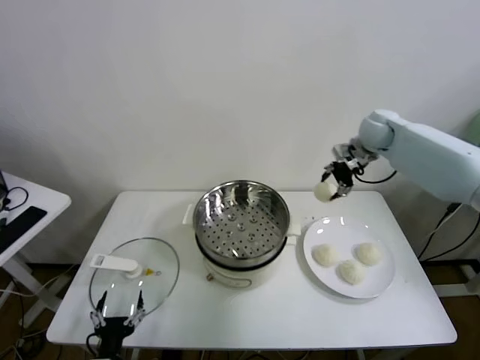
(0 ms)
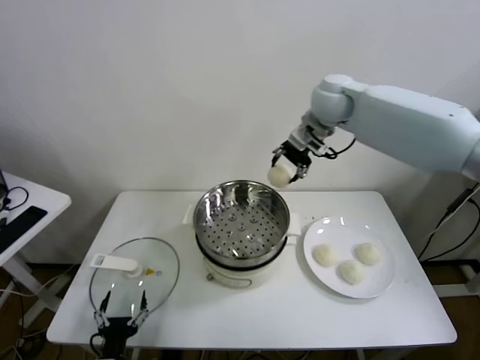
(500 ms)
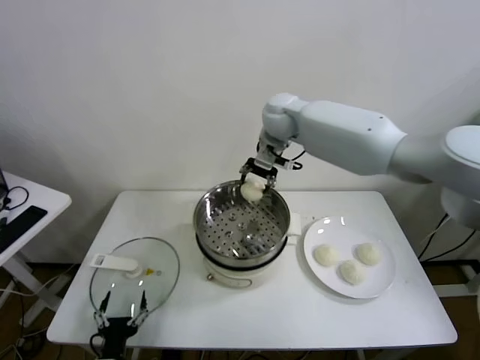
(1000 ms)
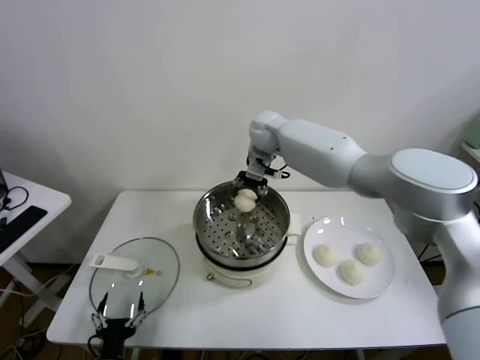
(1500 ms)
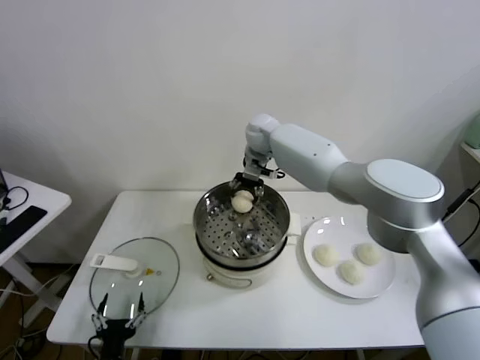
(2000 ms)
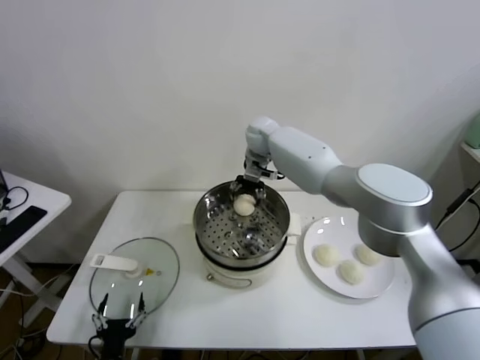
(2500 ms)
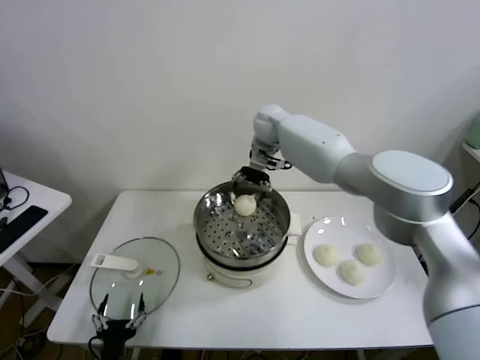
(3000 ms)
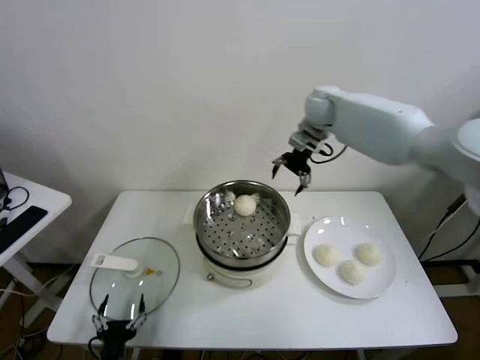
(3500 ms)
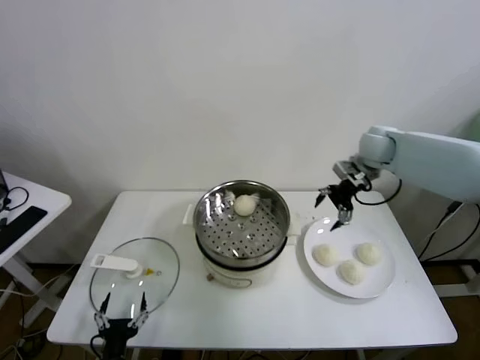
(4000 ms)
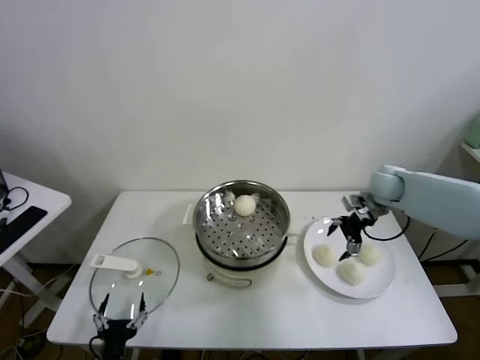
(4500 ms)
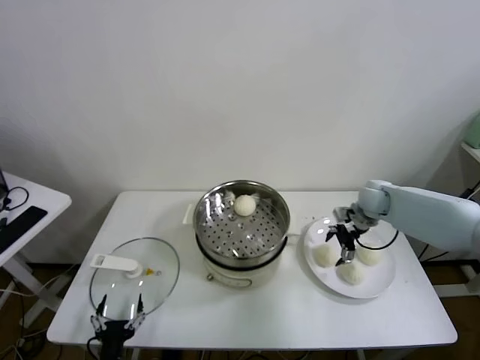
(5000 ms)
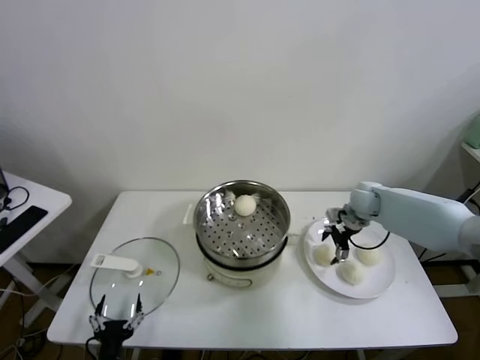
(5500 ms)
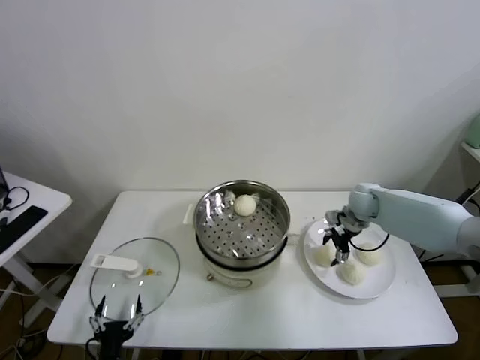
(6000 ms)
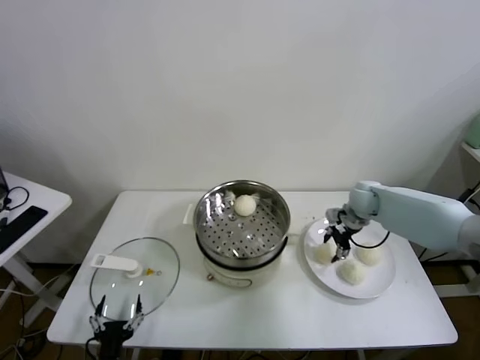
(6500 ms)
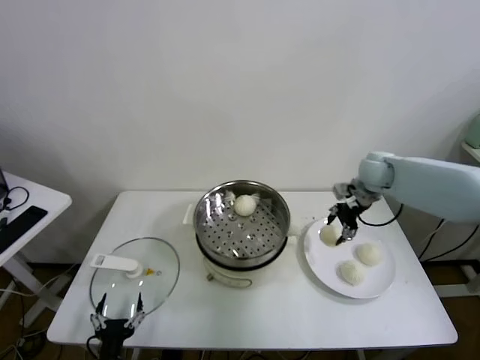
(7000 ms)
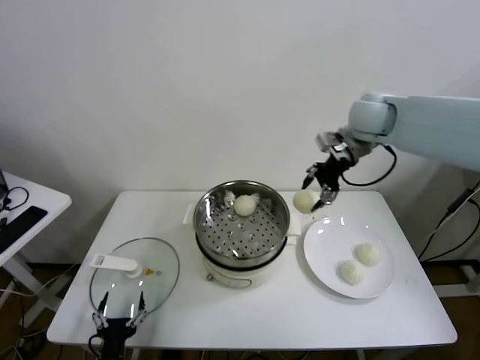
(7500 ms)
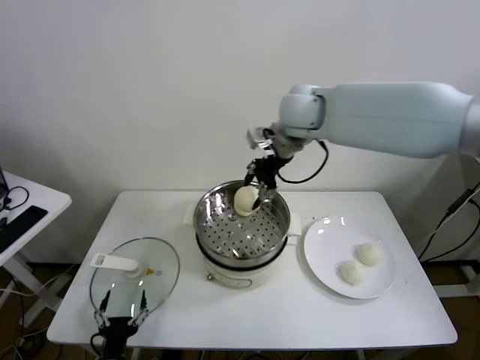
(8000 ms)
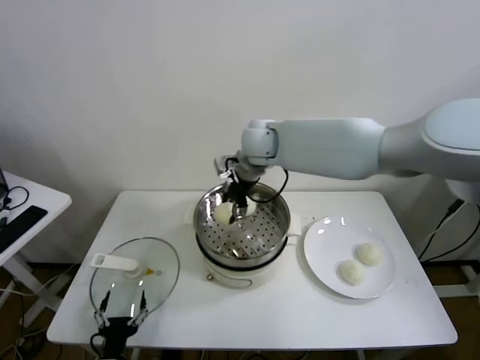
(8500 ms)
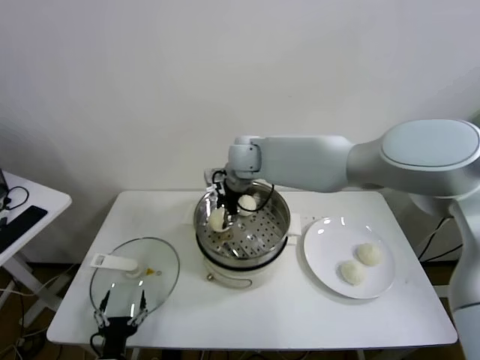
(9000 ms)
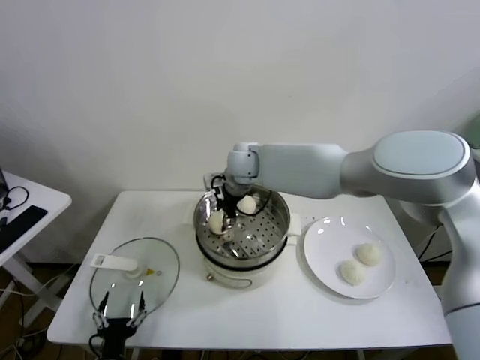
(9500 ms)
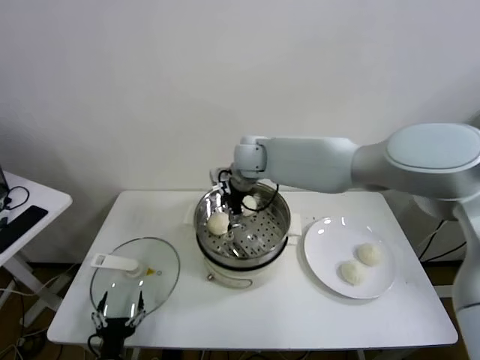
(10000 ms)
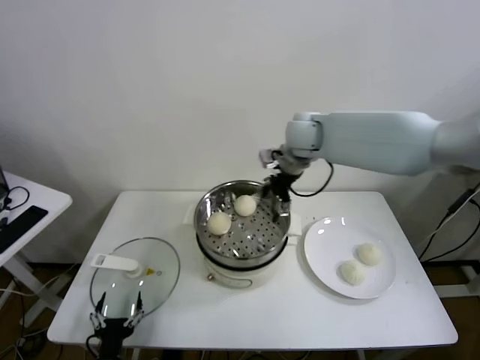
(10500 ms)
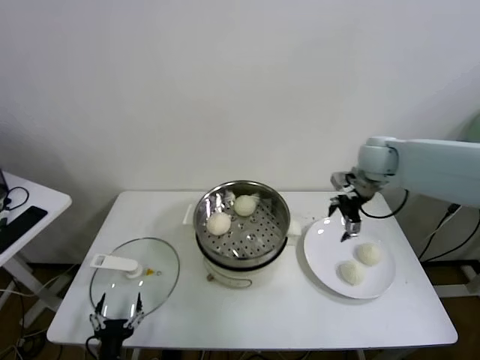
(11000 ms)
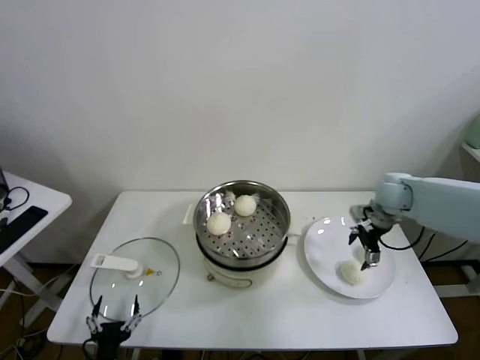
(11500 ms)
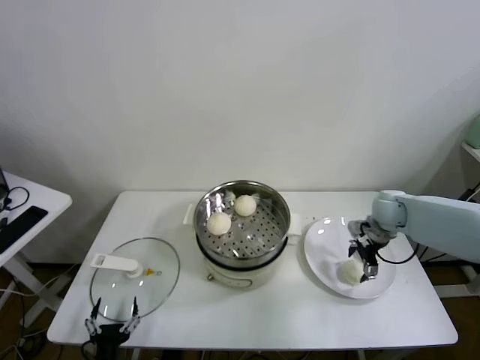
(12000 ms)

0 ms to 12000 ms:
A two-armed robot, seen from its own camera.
Task of the whole recording: take steamed baozi put them in steamer.
Step, 0 ms to 2500 ms: Place the baozi on the steamer with right gripper.
Step, 3000 ms to 6000 ms: Grasp the baozi in the plate with right gripper.
Step, 6500 ms to 9500 ms: Place the baozi on the steamer with right gripper.
0 ms to 2000 ms: The right gripper goes roughly 25 cm to the left.
2000 ms to 4000 ms: The right gripper moves to the right, approximately 30 cm, and opens its fingers.
4000 ms to 6000 ms: The right gripper travels downward by approximately 15 cm, and closes up.
6000 ms to 8000 ms: The right gripper goes some 35 cm upward and to the left.
8000 ms to 10000 ms: The right gripper is displaced downward and to the left by roughly 15 cm, and opens its fingers.
10000 ms to 12000 ms: The right gripper moves to the right, approximately 35 cm.

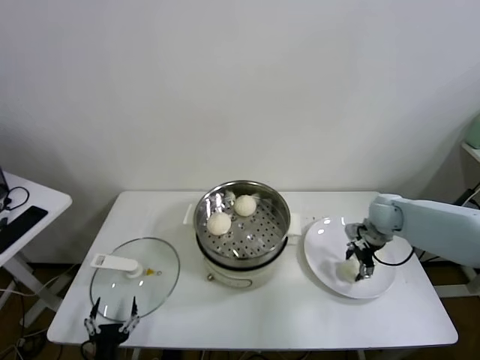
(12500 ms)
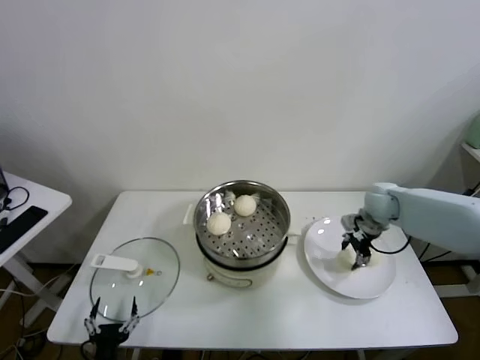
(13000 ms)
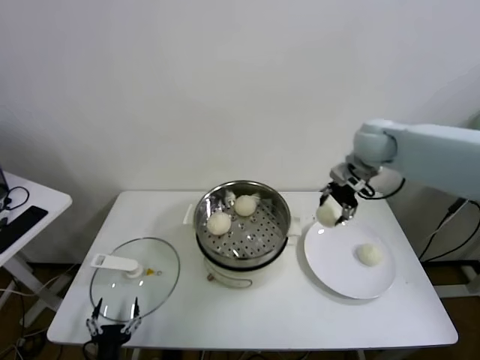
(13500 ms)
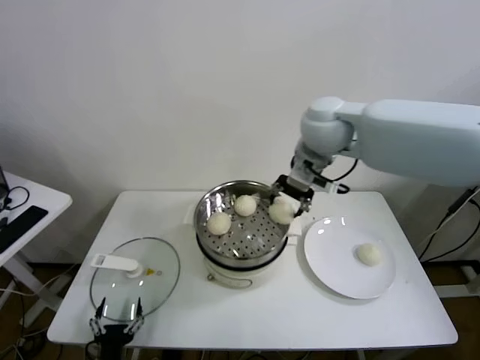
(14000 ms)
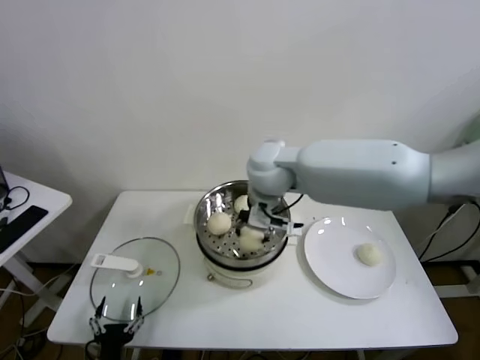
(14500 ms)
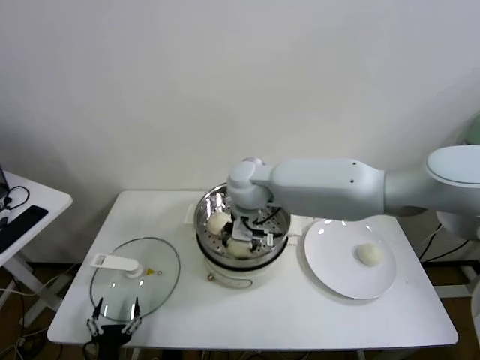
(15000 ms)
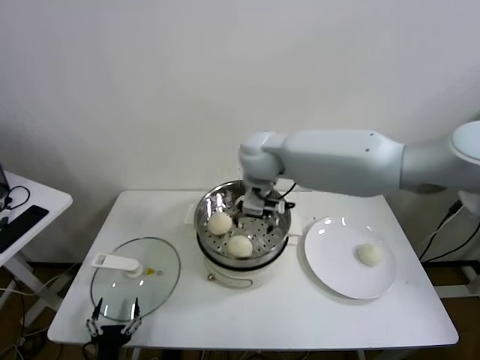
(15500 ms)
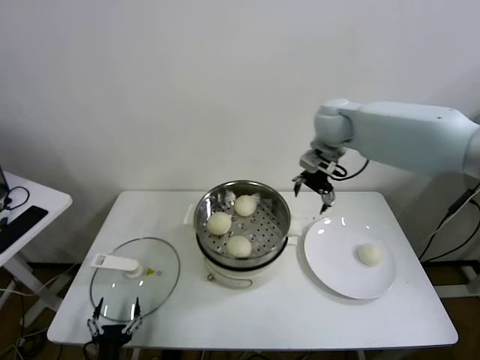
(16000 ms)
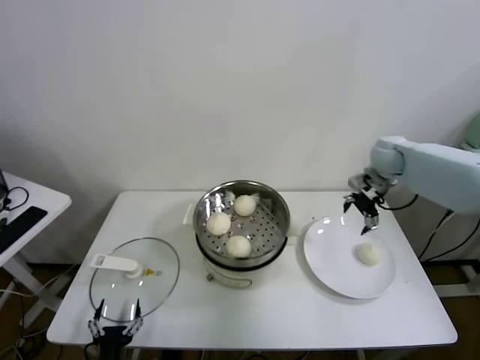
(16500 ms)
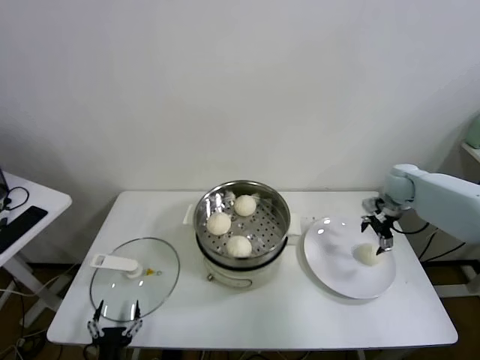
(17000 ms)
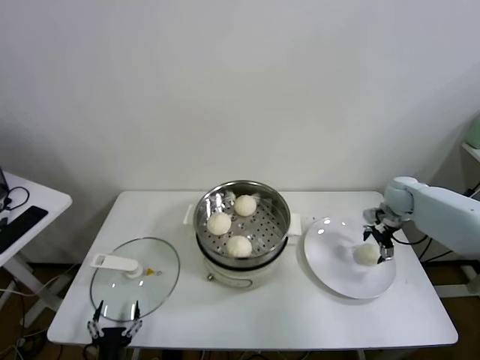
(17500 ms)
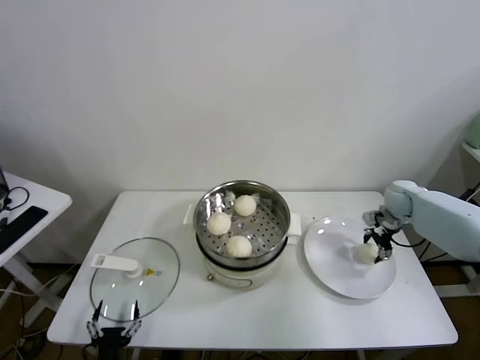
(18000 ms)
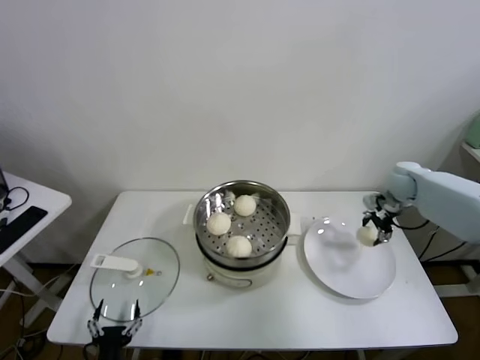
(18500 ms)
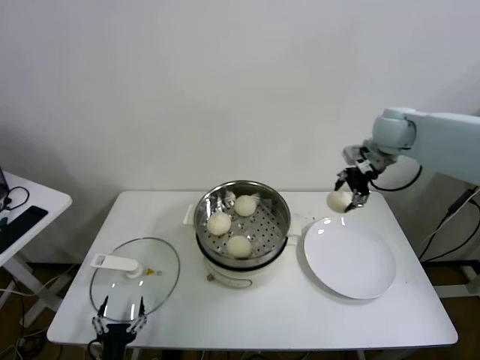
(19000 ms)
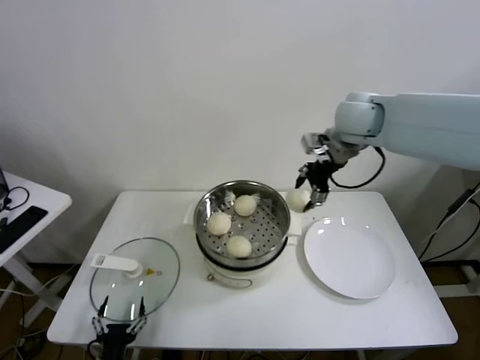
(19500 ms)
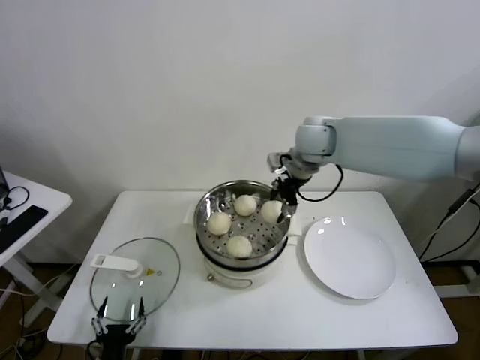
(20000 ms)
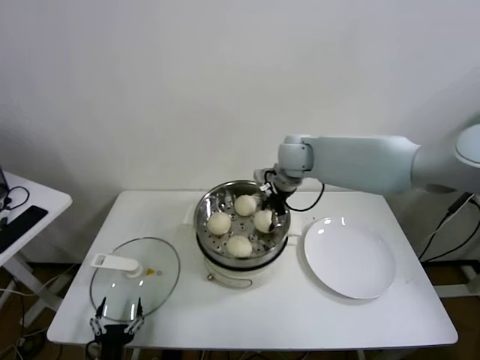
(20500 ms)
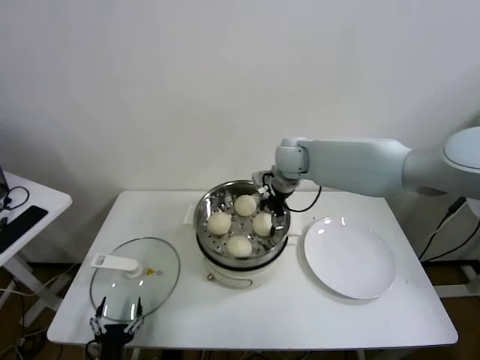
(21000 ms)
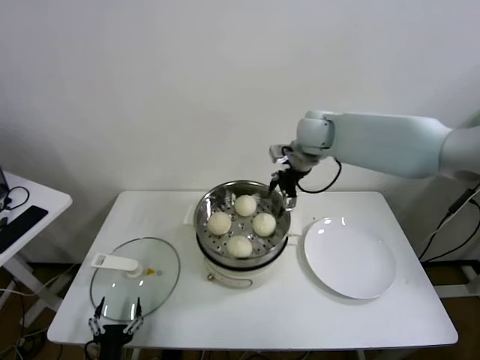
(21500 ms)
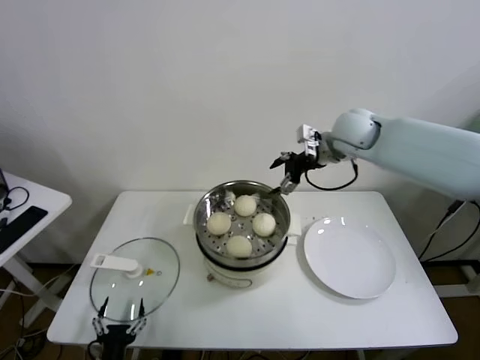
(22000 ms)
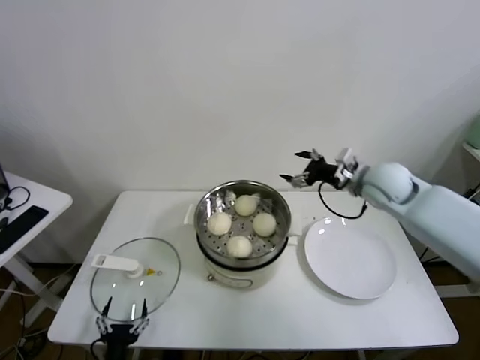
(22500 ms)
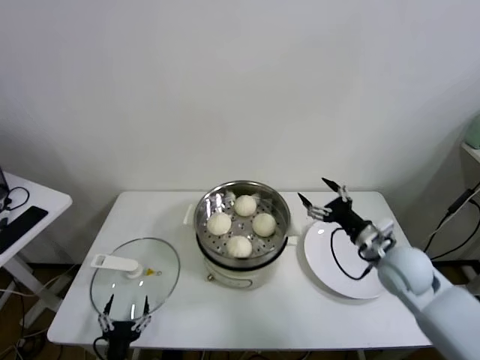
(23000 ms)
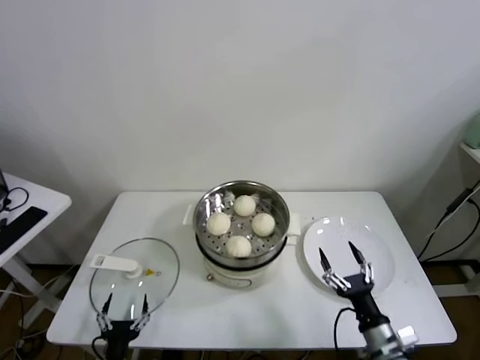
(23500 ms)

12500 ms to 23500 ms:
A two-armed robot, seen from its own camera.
Task of the whole recording: take steamed baozi put them in steamer.
Step, 13000 ms to 15000 ms: Place the baozi on the steamer with right gripper.
Step, 15500 ms to 18000 ms: Grasp the baozi in the plate with right gripper.
Step, 18500 ms to 21000 ms: Place the baozi on the steamer with right gripper.
12500 ms to 14500 ms: The right gripper travels to the left and upward by about 35 cm, and closes its fingers.
14500 ms to 16000 ms: The right gripper travels to the right and forward by some 20 cm, and opens up.
16000 ms to 18000 ms: The right gripper moves to the right and downward, approximately 30 cm, and closes up.
18000 ms to 20000 ms: The right gripper heads to the left and upward, covering approximately 35 cm.
20000 ms to 21500 ms: The right gripper opens up.
21500 ms to 23500 ms: The right gripper heads backward and downward, covering approximately 50 cm.

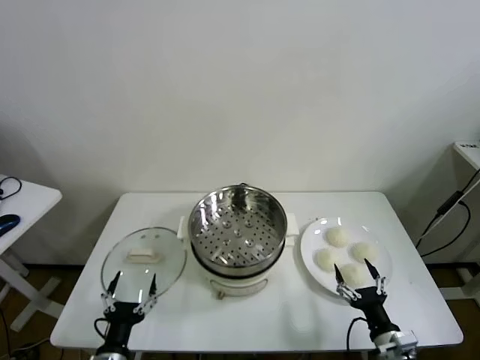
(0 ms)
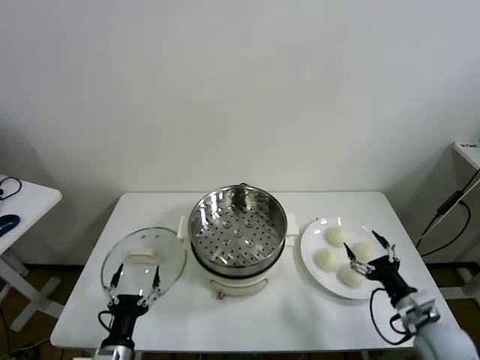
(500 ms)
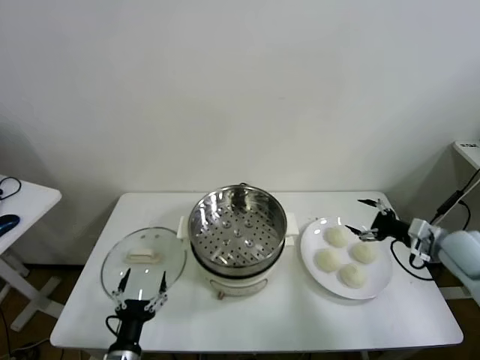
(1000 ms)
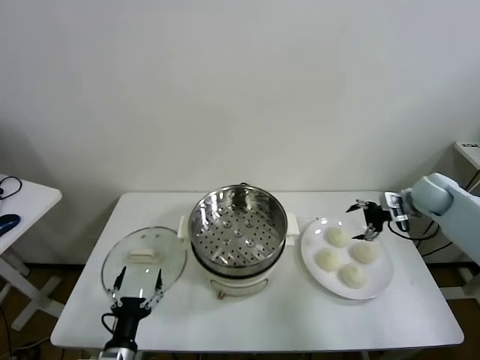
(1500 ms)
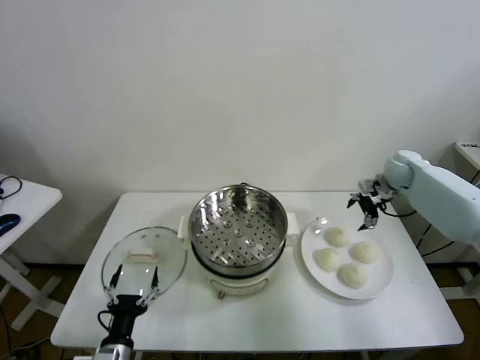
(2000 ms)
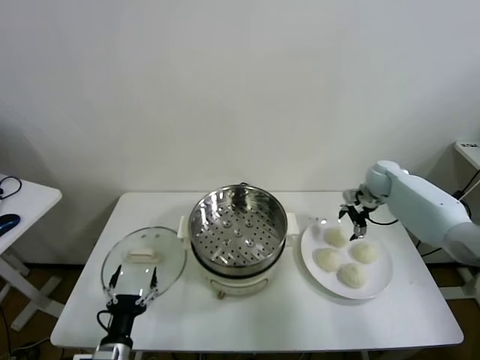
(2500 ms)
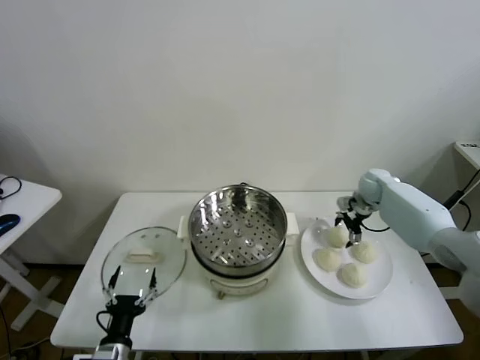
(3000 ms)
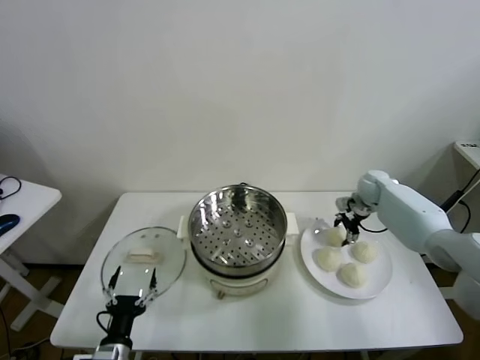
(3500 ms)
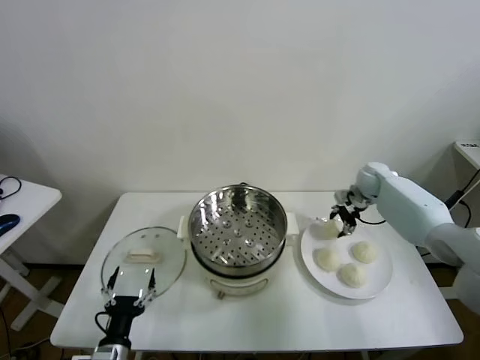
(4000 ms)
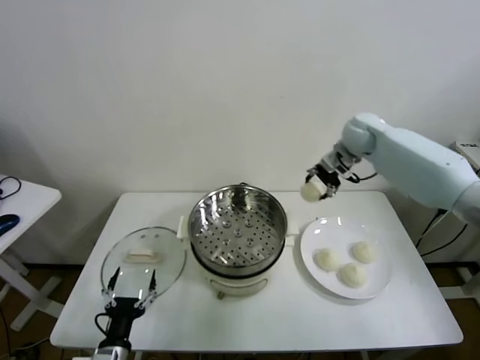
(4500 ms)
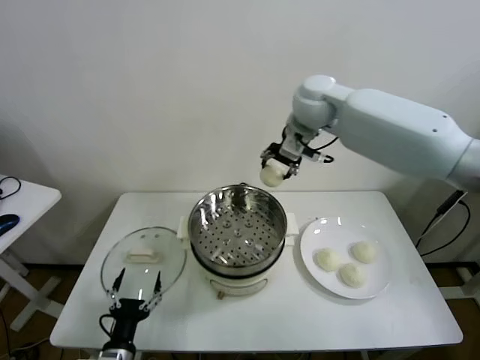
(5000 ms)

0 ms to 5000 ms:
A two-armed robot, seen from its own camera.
Task of the whole recording: take steamed baozi put them in steamer.
Step, 0 ms to 3000 ms: Grasp the baozi in the plate with right gripper.
2500 ms to 5000 ms: The right gripper is displaced to the left and upward by about 35 cm, and closes up.
